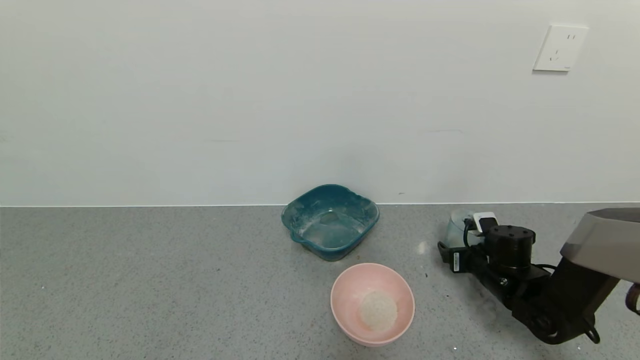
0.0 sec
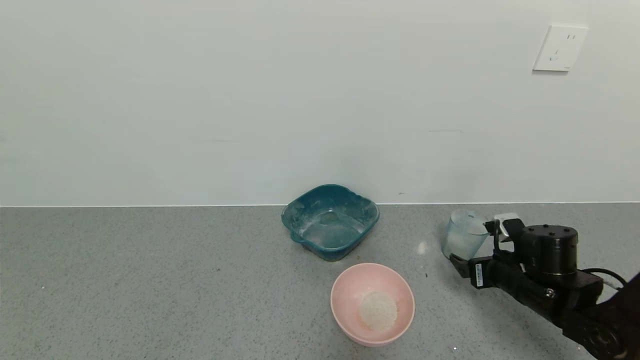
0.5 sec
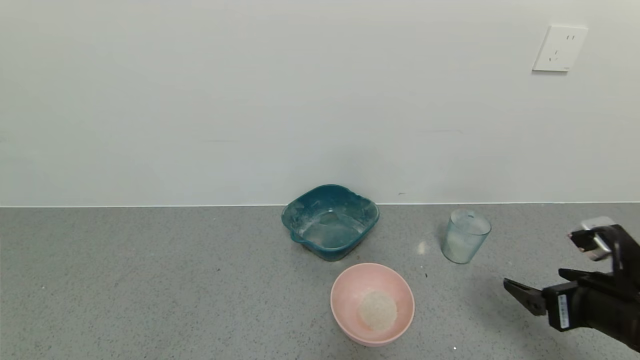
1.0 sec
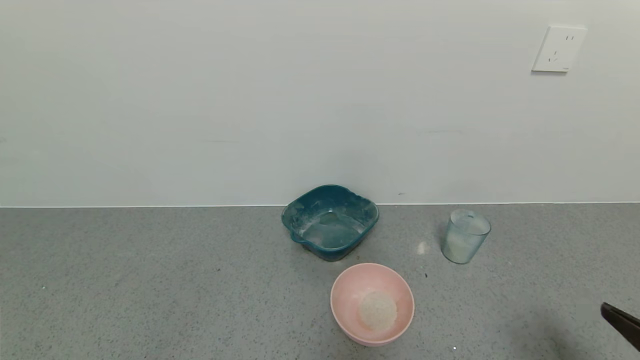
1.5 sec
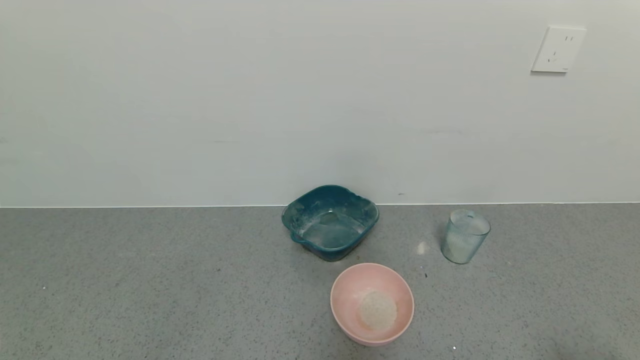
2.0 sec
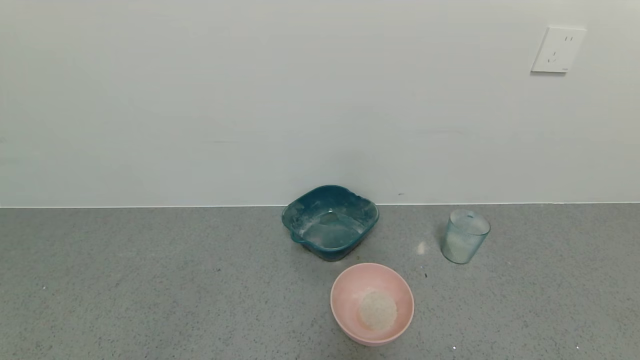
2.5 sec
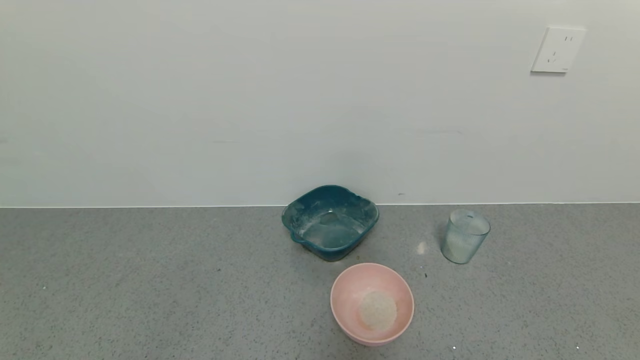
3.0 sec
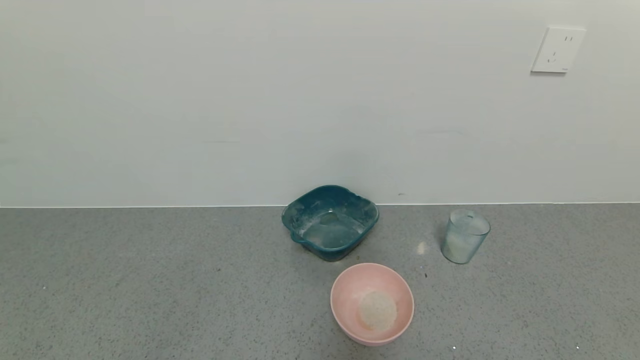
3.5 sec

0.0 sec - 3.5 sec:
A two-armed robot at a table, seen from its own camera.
Task of the whole recording: use a gripper to pick up the cup and pour the powder into a bowl or tray.
0.0 sec - 2.0 sec: The right gripper moves backward and upward, about 40 cm.

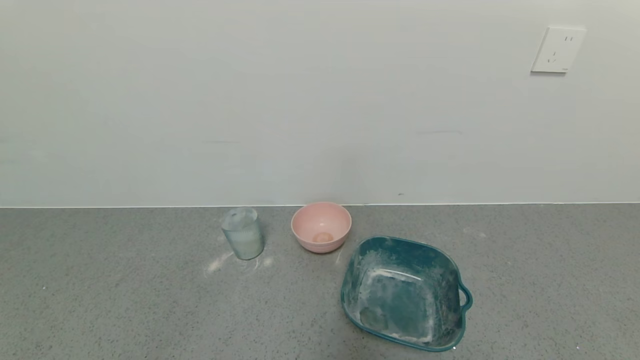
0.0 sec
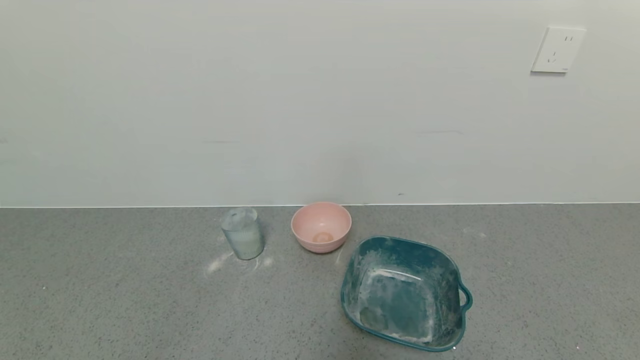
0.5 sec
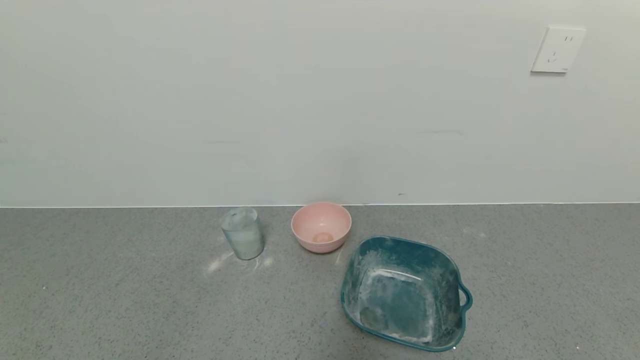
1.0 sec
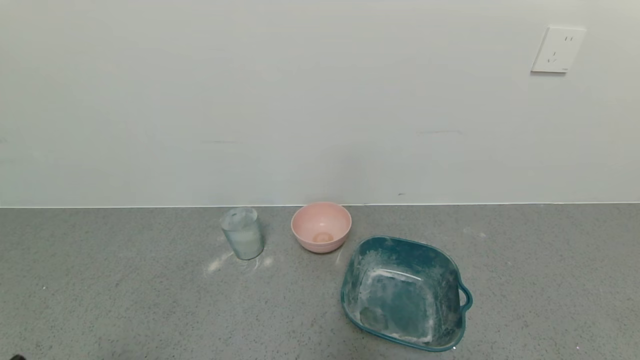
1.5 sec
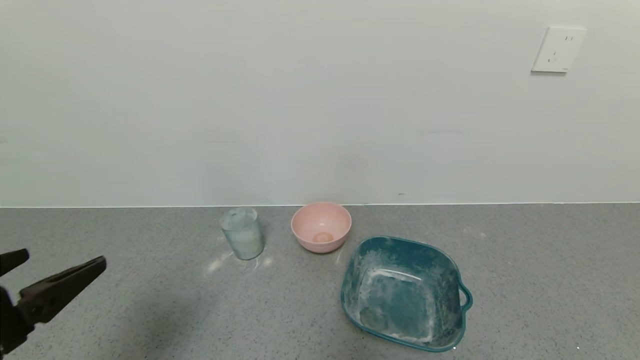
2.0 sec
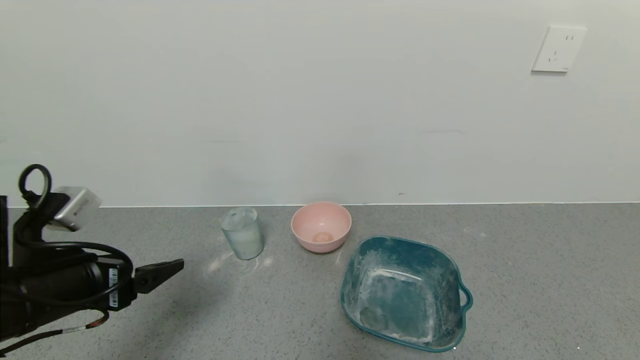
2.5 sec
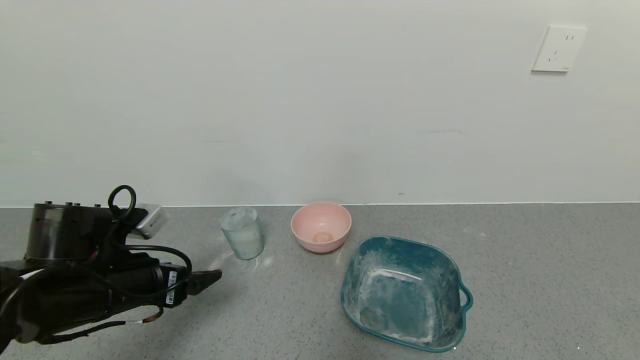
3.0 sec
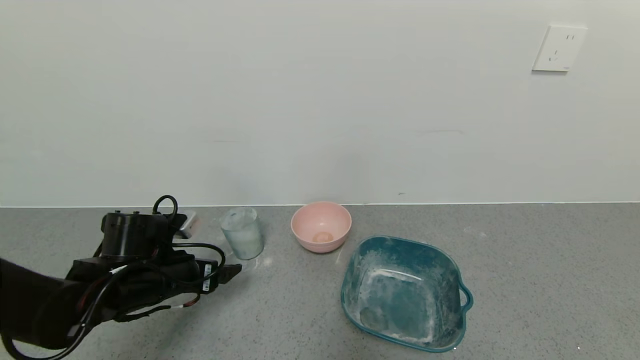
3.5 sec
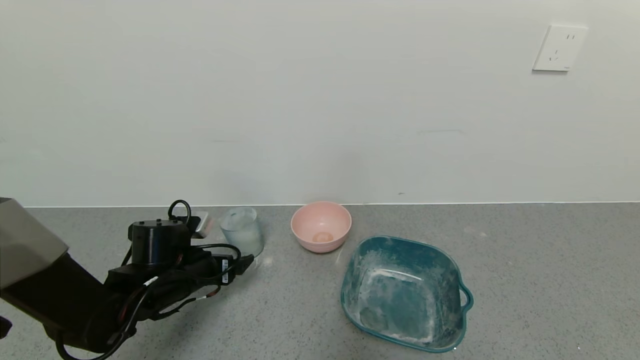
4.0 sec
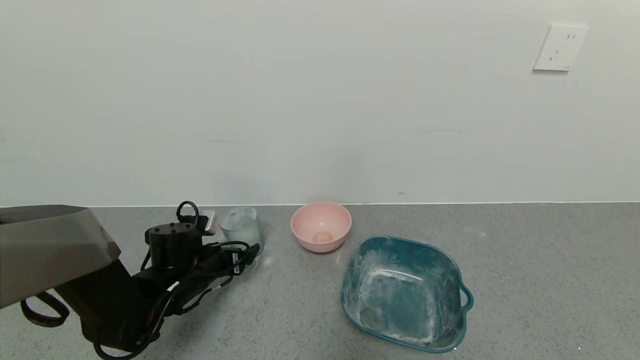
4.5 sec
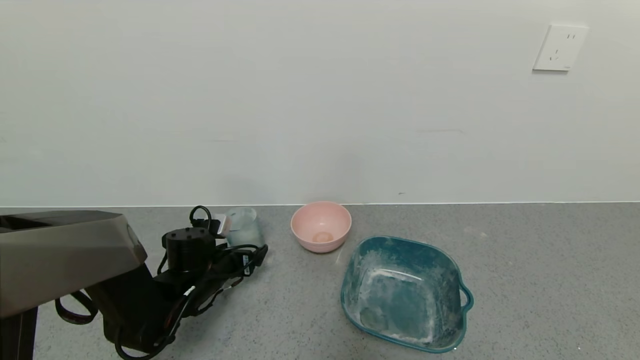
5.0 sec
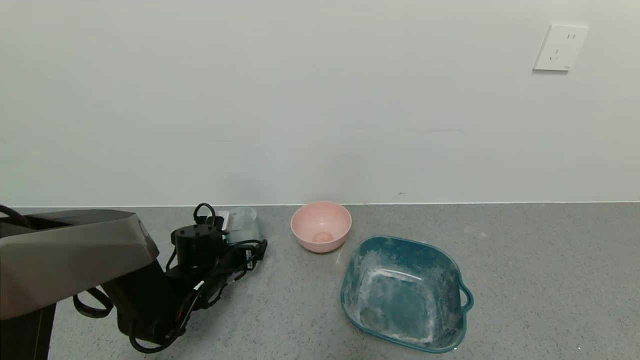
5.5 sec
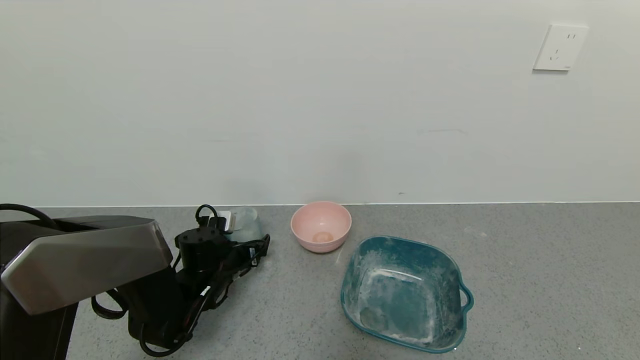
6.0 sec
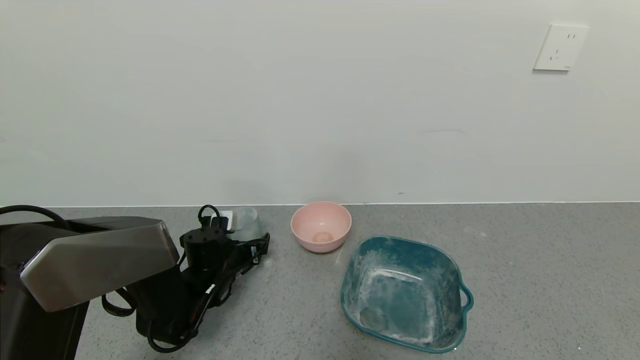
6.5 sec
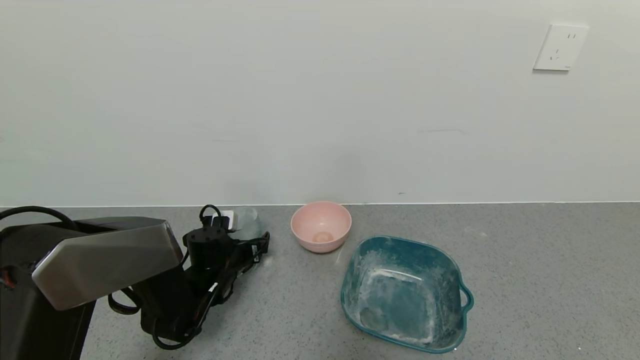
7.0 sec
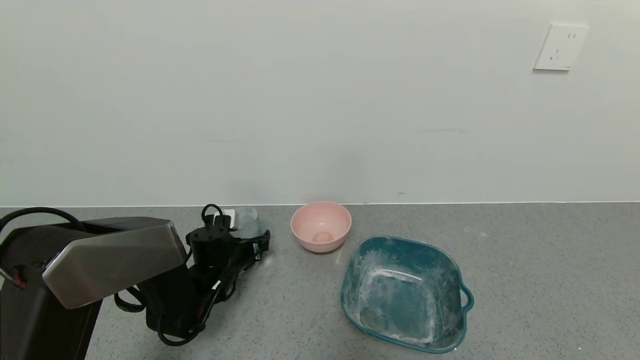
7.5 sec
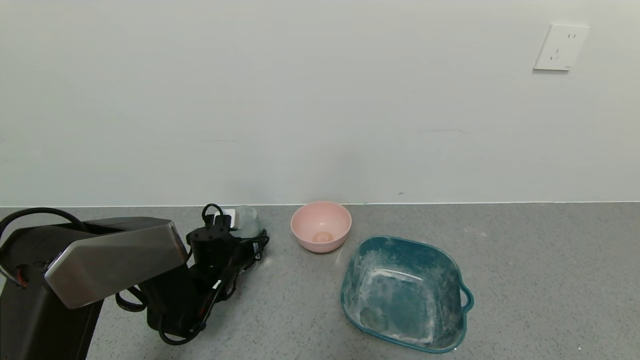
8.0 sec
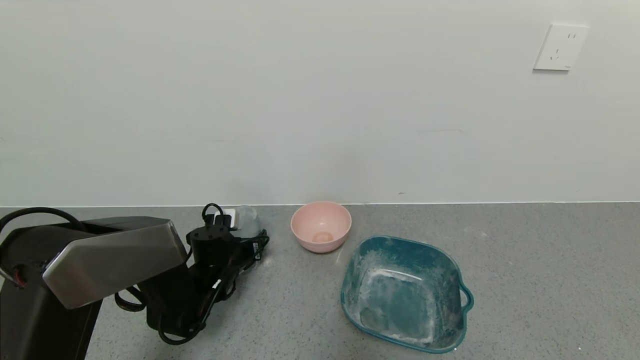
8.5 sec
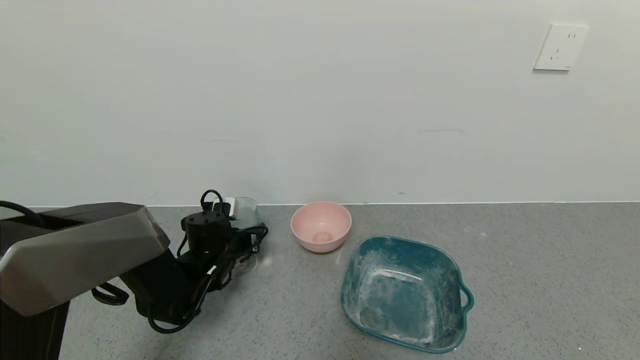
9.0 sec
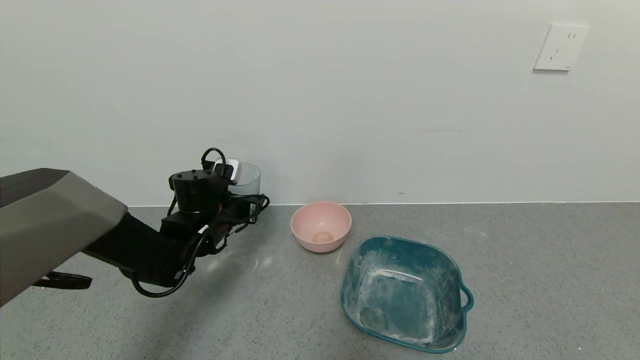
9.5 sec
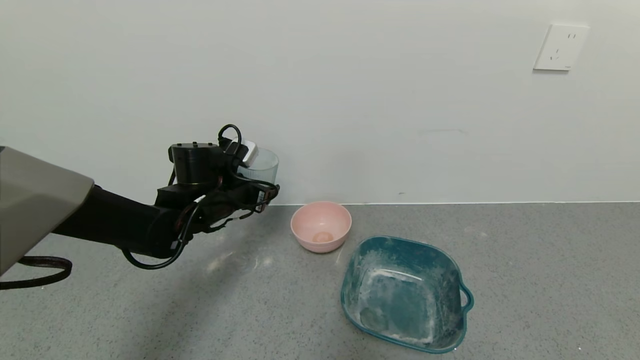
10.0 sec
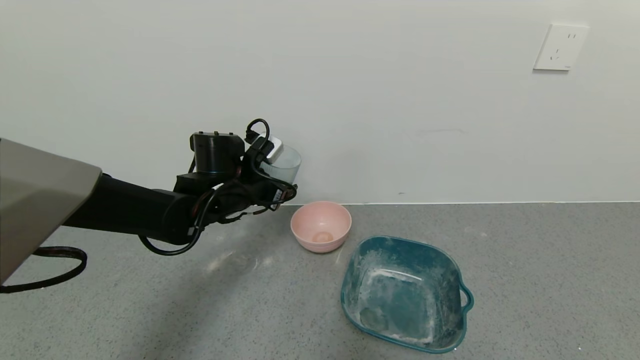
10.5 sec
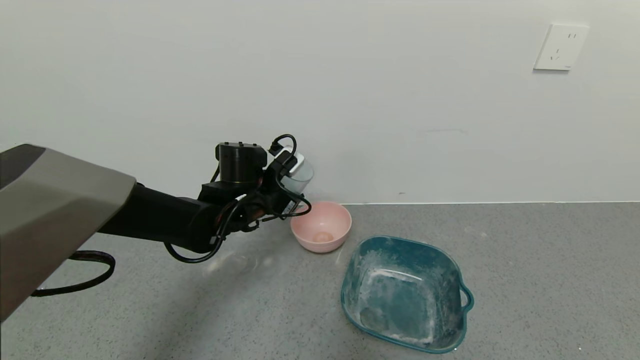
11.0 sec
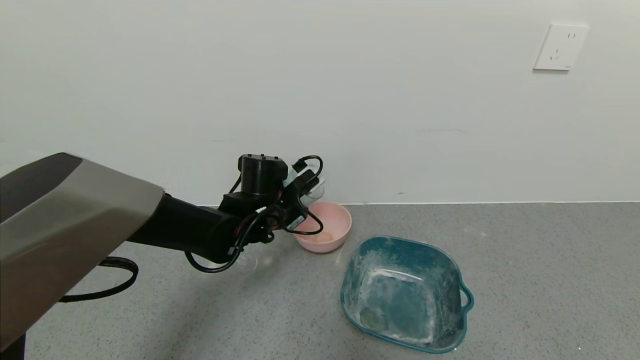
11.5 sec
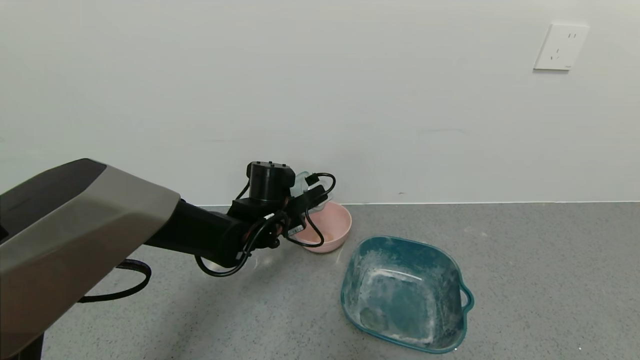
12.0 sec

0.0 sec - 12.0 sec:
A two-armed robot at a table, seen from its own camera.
Task of the whole recording: use a gripper to pick up the cup and pour the powder into a bowl or tray.
Step, 0.0 sec - 8.0 sec: Grasp the glass of powder with the left gripper.
0.0 sec - 2.0 sec: The left gripper is displaced upward and forward by about 20 cm.
2.0 sec - 4.0 sec: The left gripper is displaced forward and downward by roughly 25 cm.
4.0 sec - 6.0 sec: The left gripper is displaced forward by some 5 cm.
6.0 sec - 8.0 sec: The left gripper closes.
8.0 sec - 10.0 sec: The left gripper travels upward by some 15 cm.
10.0 sec - 12.0 sec: The left gripper goes approximately 10 cm to the right.

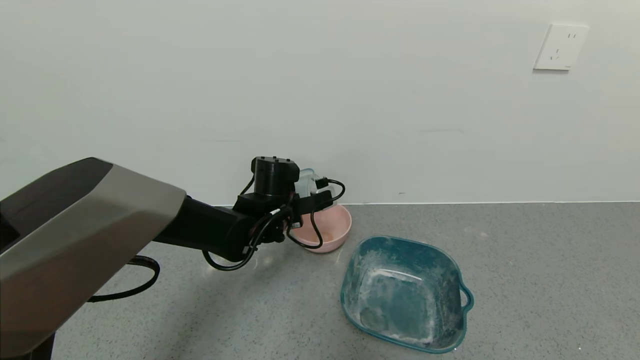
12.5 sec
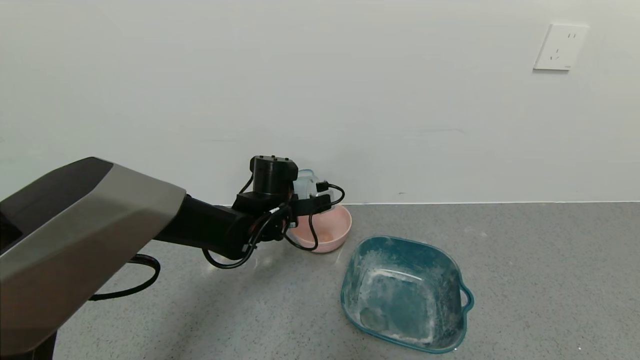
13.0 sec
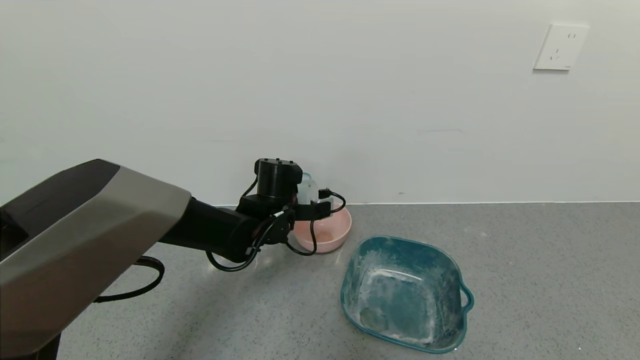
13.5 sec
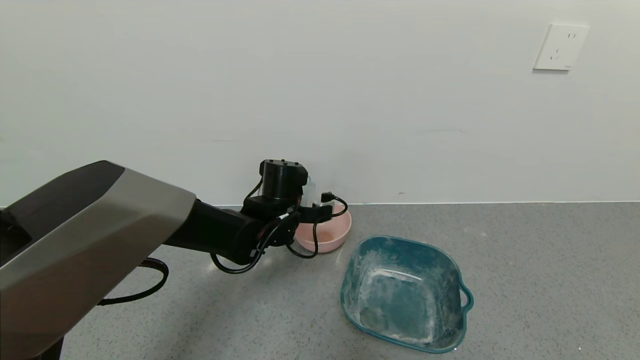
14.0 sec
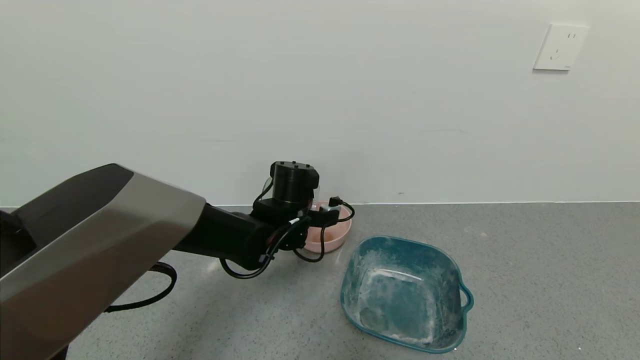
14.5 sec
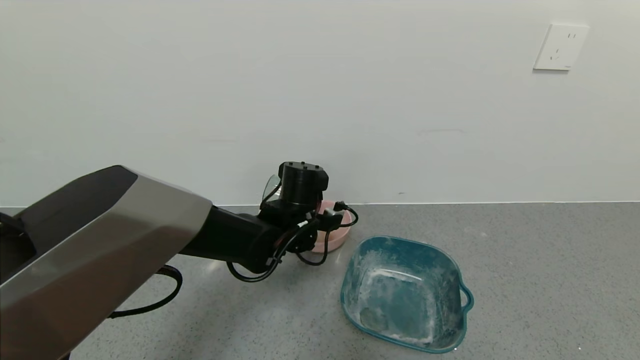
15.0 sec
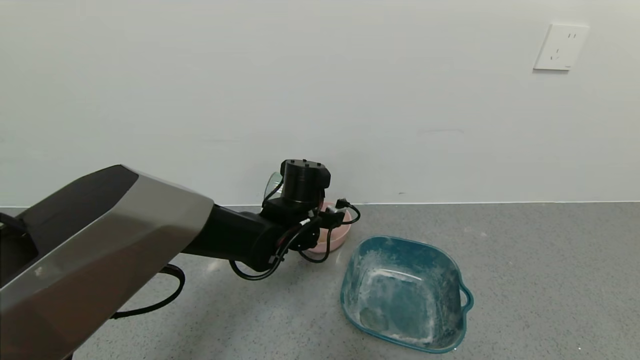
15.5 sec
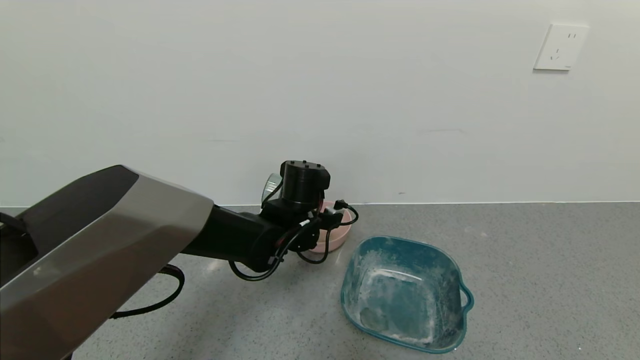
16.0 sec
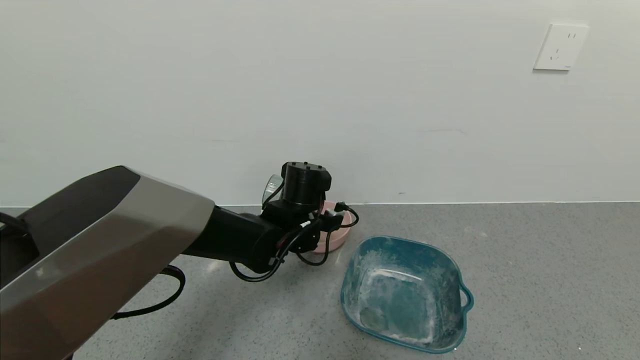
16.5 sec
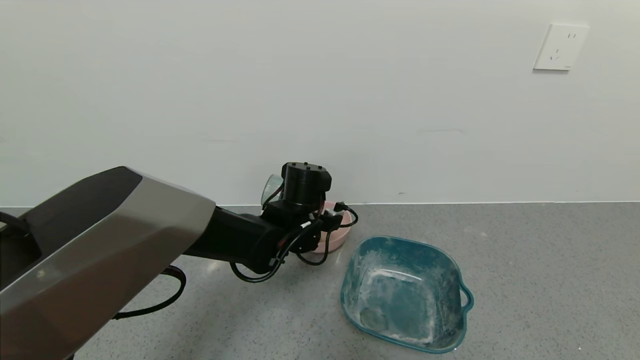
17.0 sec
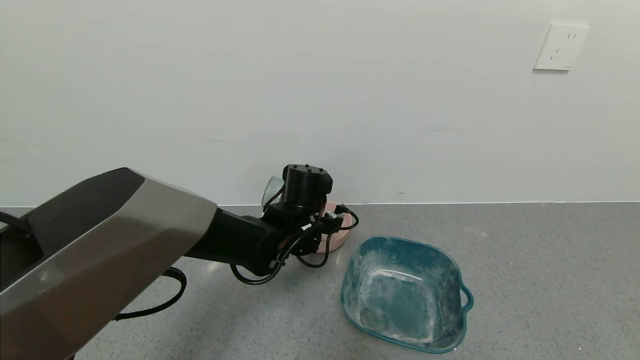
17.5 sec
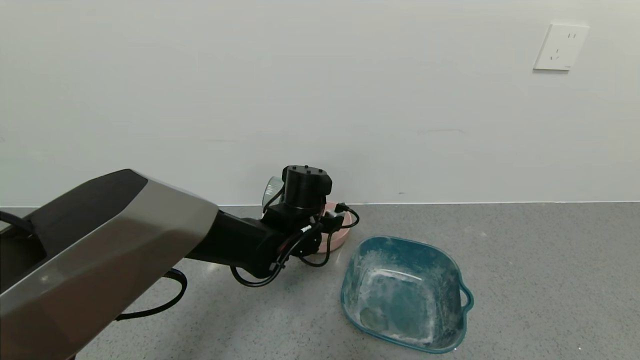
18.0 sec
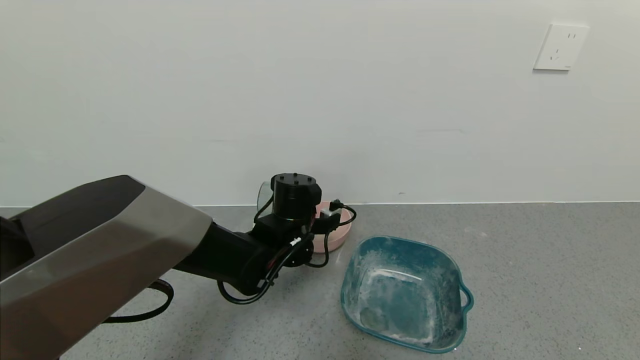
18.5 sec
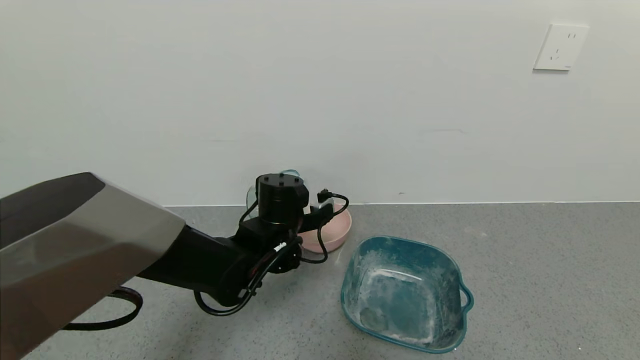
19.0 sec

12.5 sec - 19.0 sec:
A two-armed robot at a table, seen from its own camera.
Task of the whole recording: use a gripper to pick up the cup and pour the powder into a bowl or tray.
Step, 12.5 sec - 18.5 sec: Pour the powder into the pink bowl with the left gripper.
14.5 sec - 17.0 sec: The grippers move only a little.
